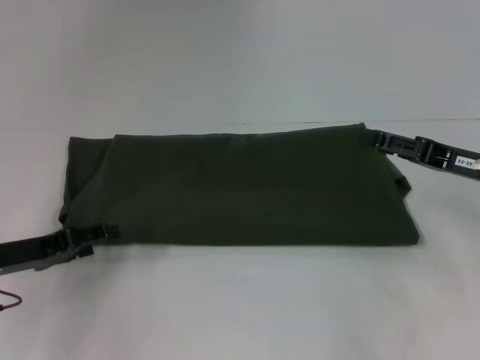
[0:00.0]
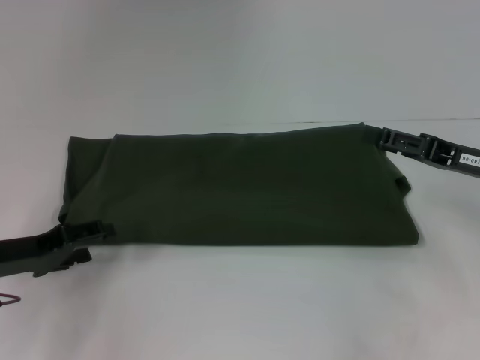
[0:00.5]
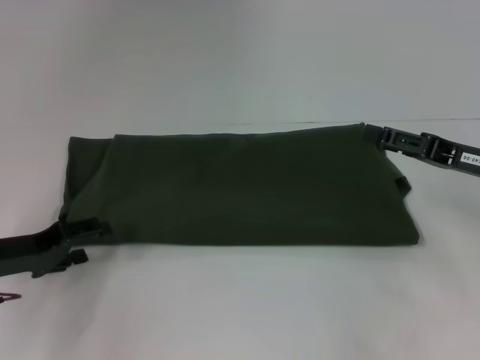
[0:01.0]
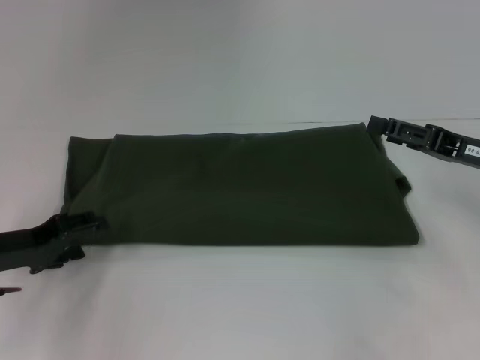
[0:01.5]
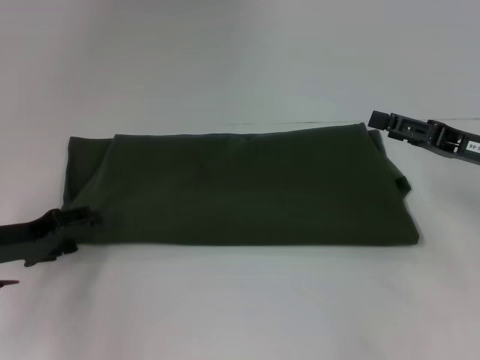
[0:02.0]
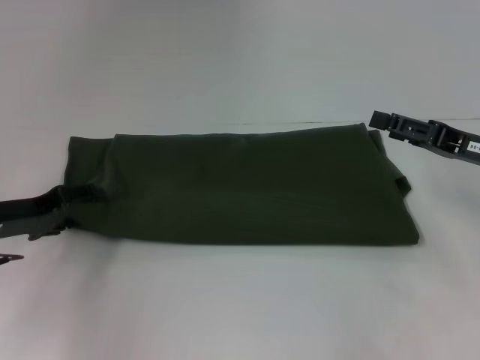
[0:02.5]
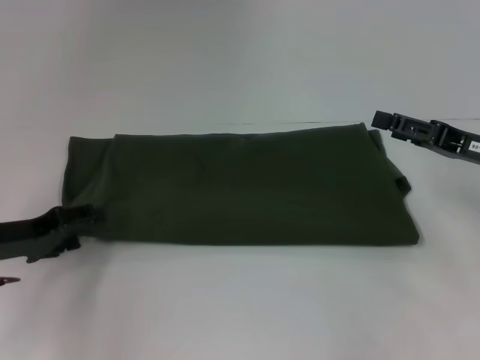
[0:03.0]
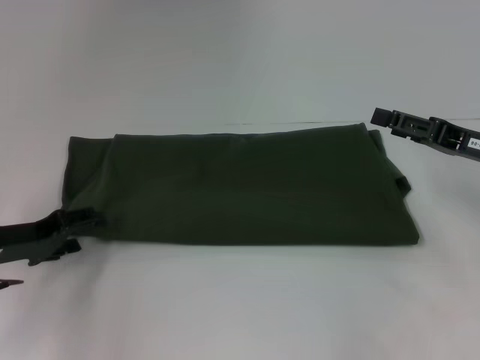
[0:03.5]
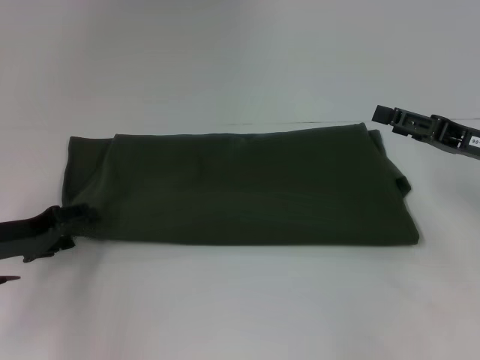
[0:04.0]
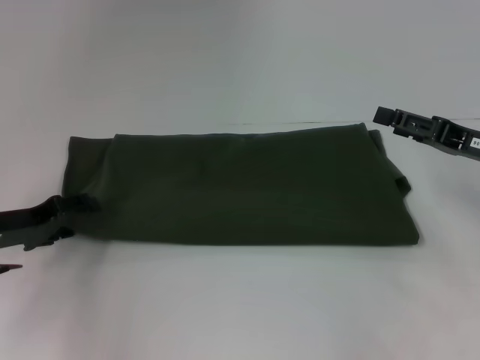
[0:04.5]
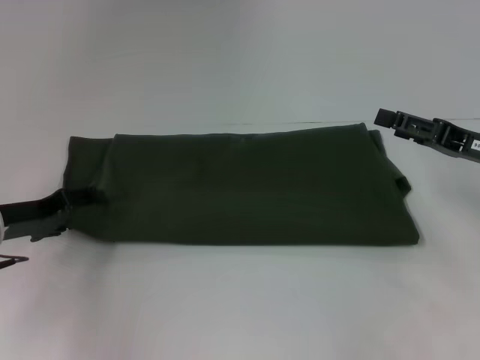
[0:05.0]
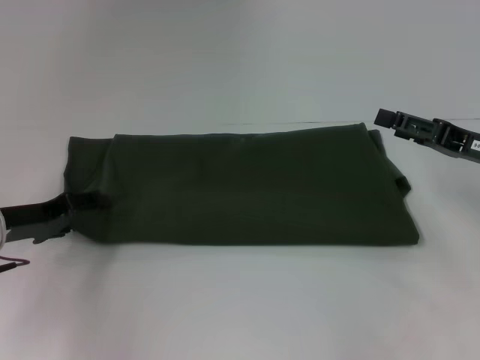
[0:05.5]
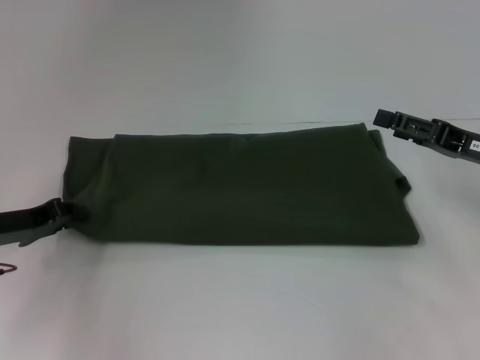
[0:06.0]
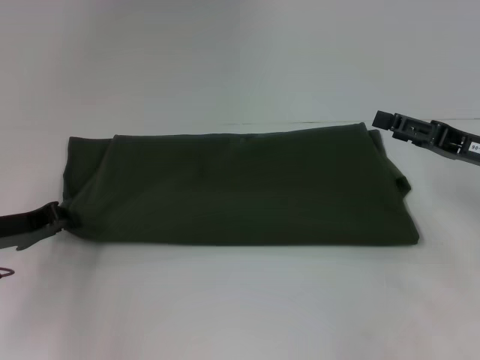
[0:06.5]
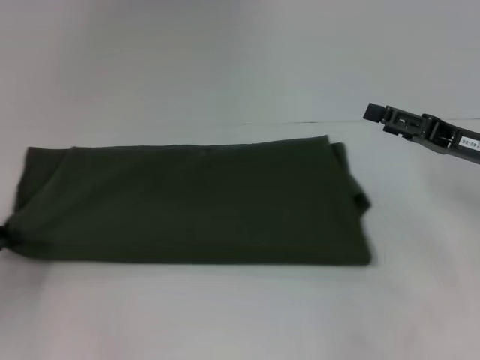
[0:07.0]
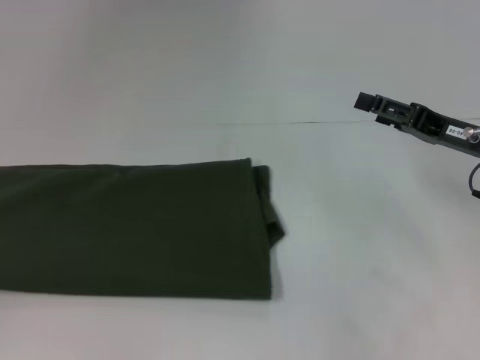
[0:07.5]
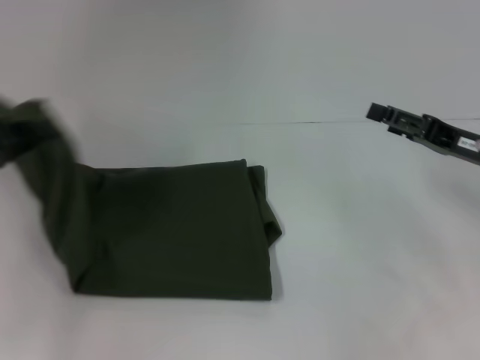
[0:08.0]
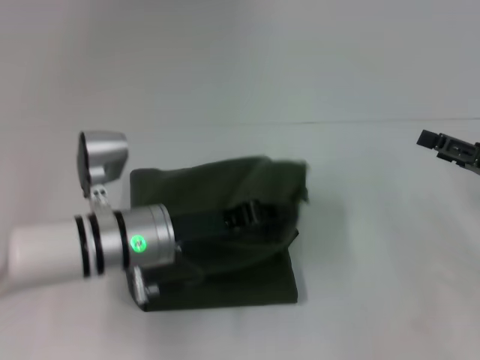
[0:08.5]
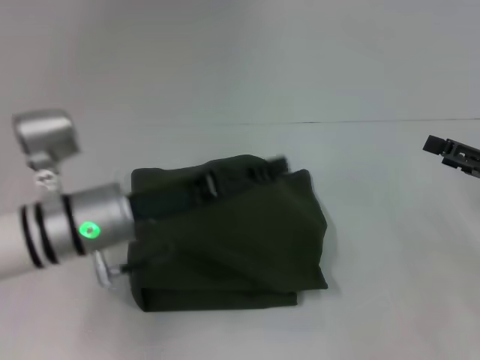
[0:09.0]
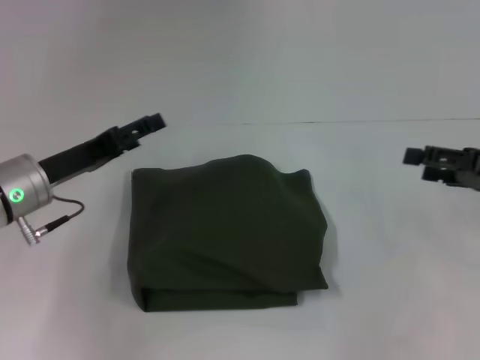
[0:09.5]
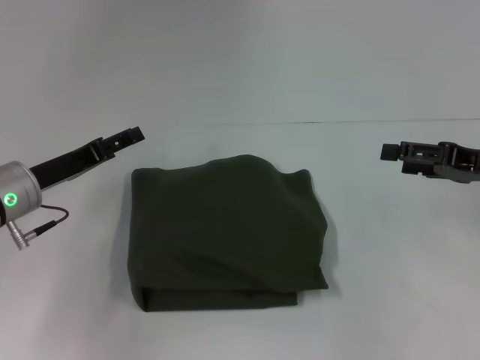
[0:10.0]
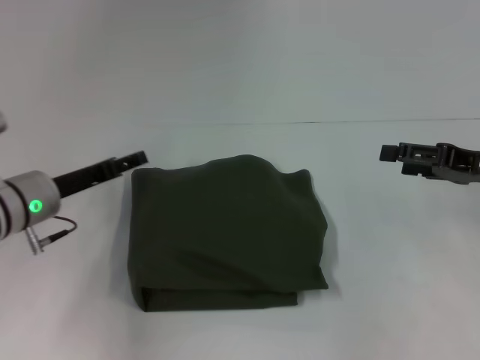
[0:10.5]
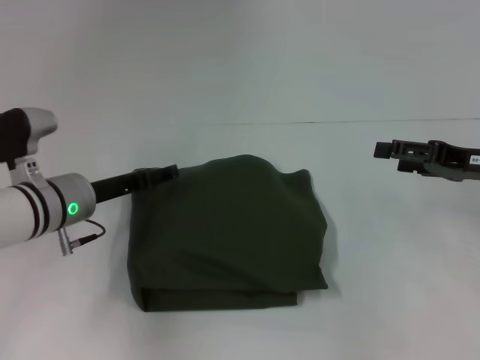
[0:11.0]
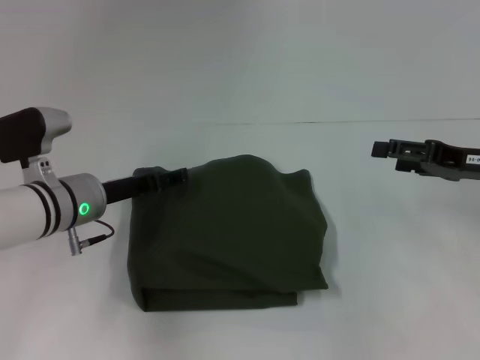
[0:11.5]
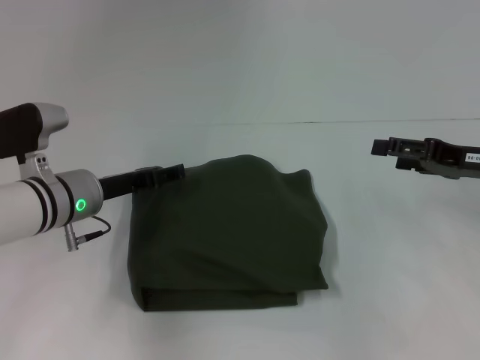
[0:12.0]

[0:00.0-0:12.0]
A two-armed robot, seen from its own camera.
0:00.0 to 0:04.0: There are only small adjustments of the grippers.
0:04.0 to 0:06.0: The left gripper closes up.
0:06.0 to 0:08.0: The left gripper heads upward, covering approximately 10 cm, moves roughly 15 cm to the left and comes back, and closes its fingers.
0:08.0 to 0:10.0: The left gripper travels to the right and downward by roughly 10 cm, and opens.
0:10.0 to 0:12.0: The left gripper goes about 5 cm to the right.

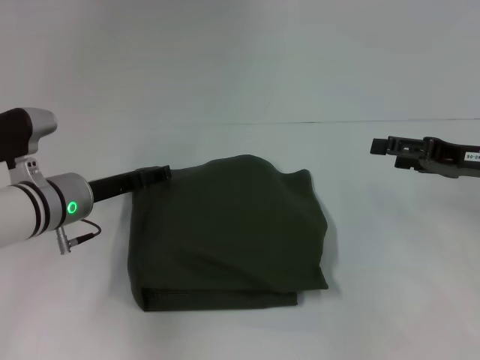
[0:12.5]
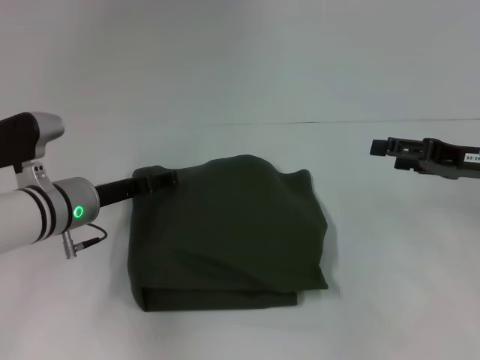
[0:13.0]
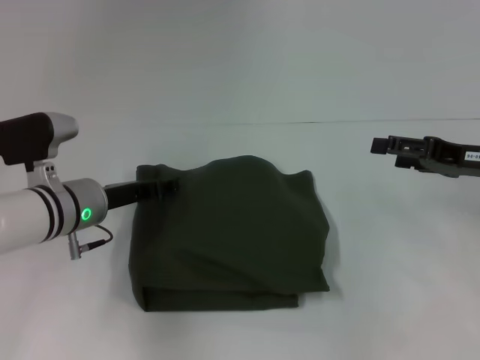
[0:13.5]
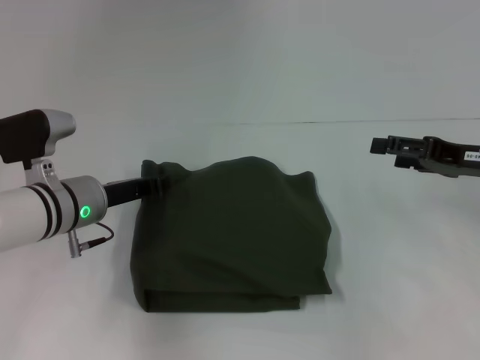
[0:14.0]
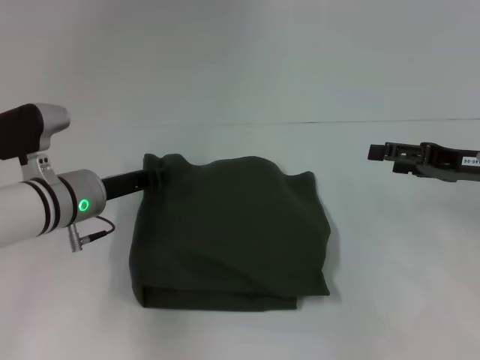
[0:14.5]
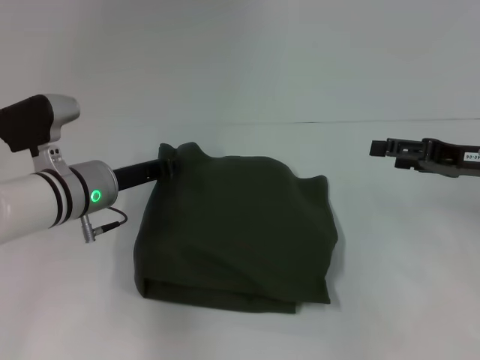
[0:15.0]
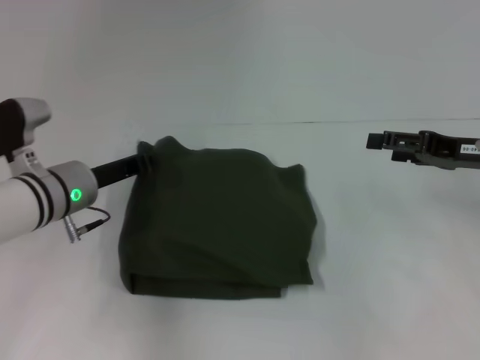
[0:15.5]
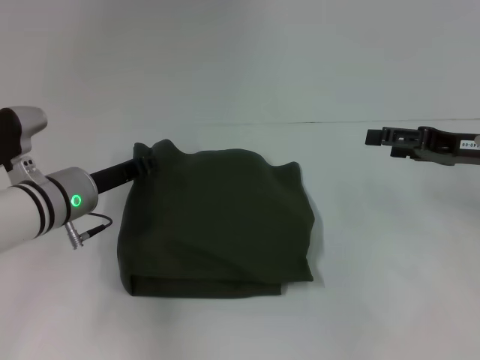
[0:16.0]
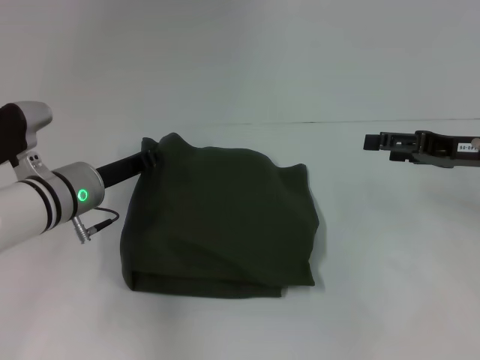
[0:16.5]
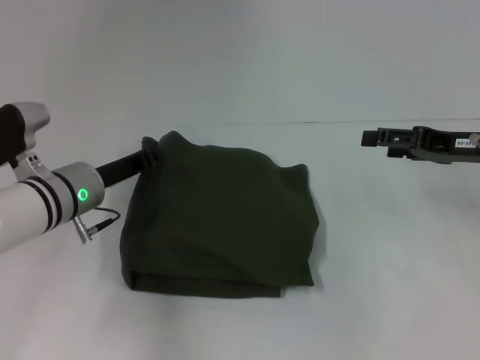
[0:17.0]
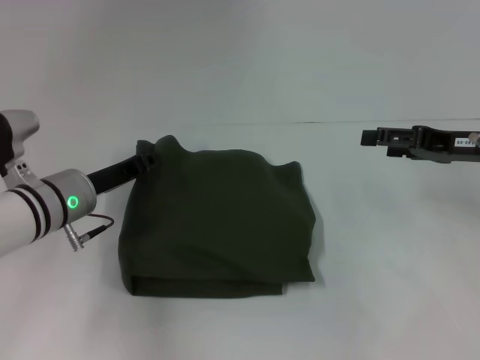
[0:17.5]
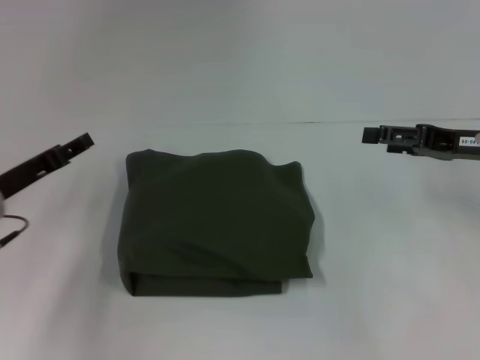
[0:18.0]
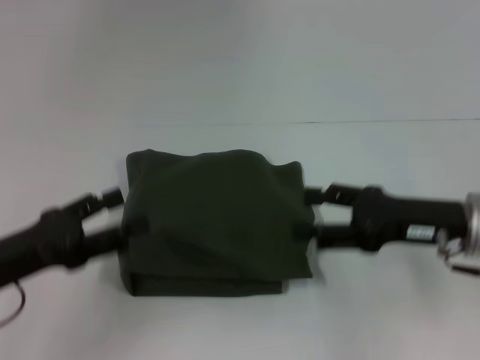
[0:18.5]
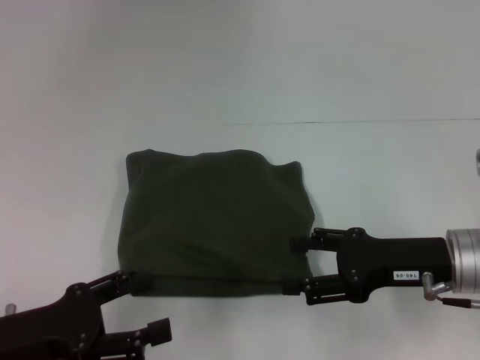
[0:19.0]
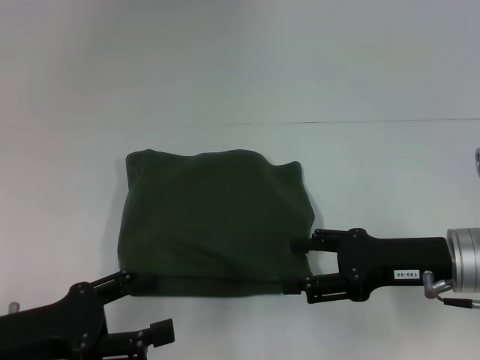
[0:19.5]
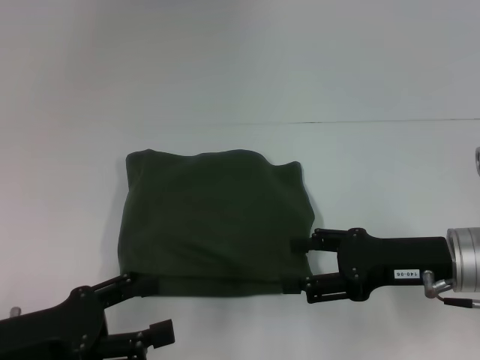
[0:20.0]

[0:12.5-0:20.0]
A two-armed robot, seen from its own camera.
Step, 0:12.5 to 0:19.5: Fold the clothes with your left hand.
0:12.5 to 0:14.5: The left gripper closes up.
0:14.5 to 0:16.5: There are only small adjustments of the grippers.
0:16.5 to 0:18.0: The left gripper shifts some 10 cm to the left, and opens up.
0:18.0 to 0:20.0: The right gripper shifts about 10 cm backward and to the left; the left gripper heads backward, covering some 15 cm, and opens its fingers.

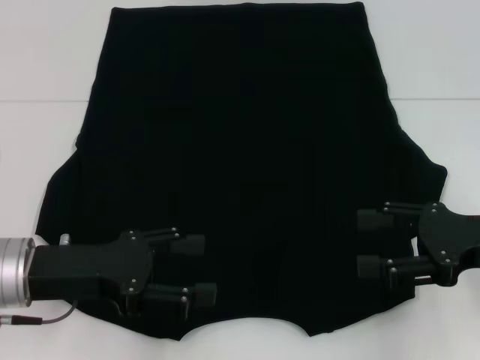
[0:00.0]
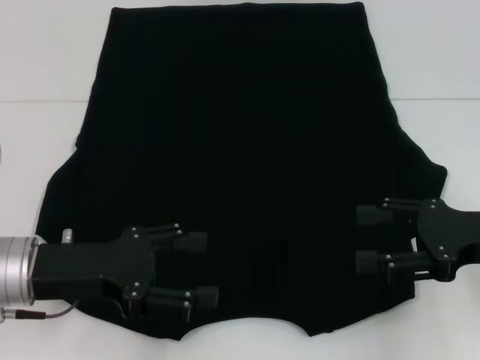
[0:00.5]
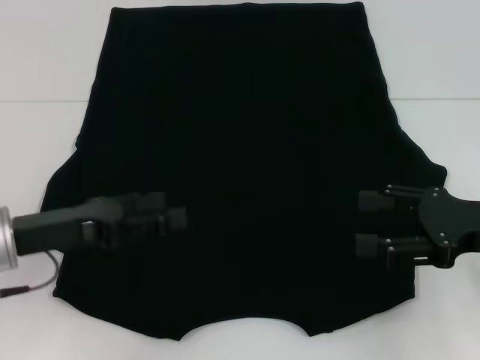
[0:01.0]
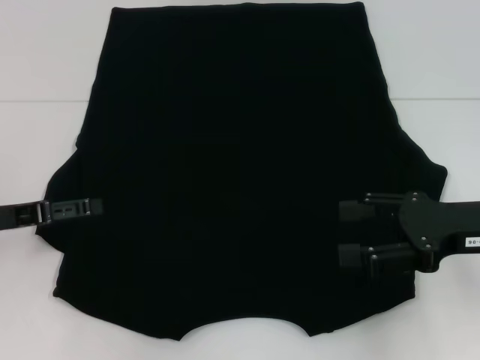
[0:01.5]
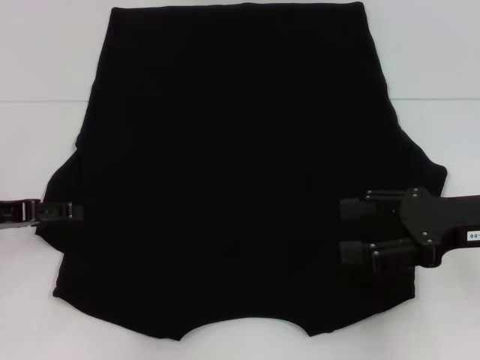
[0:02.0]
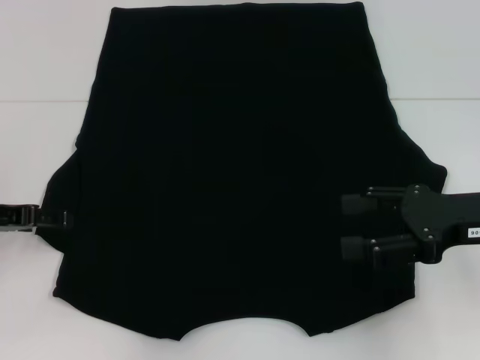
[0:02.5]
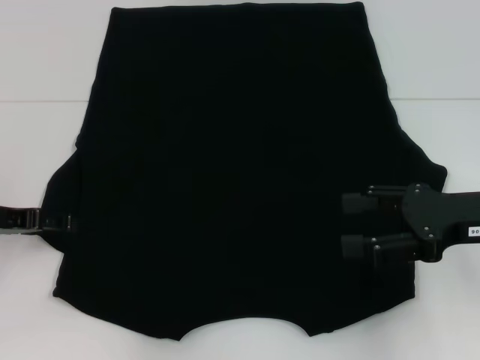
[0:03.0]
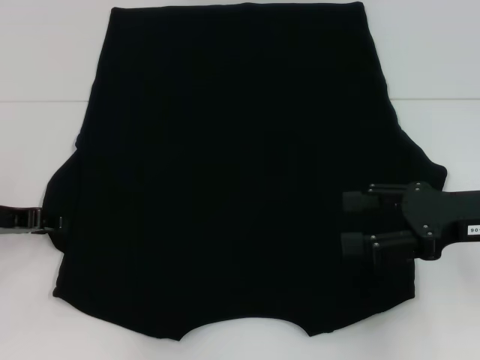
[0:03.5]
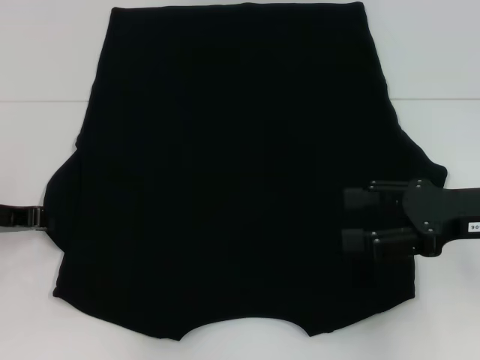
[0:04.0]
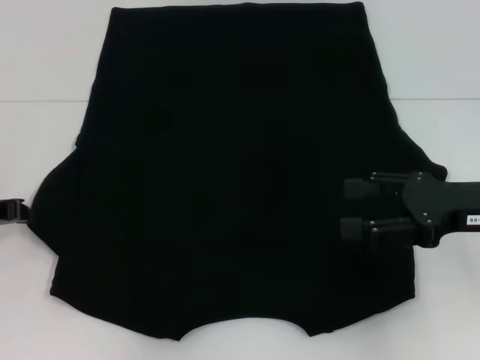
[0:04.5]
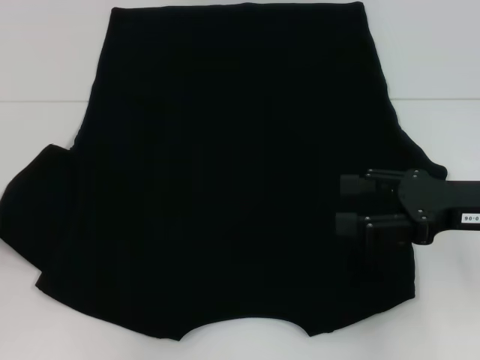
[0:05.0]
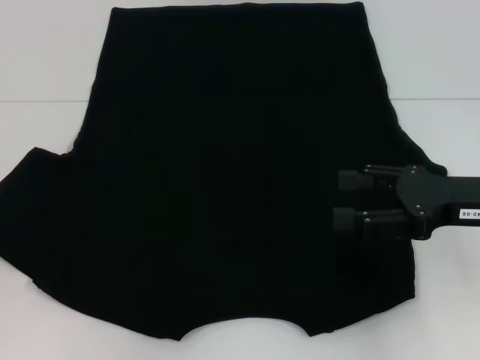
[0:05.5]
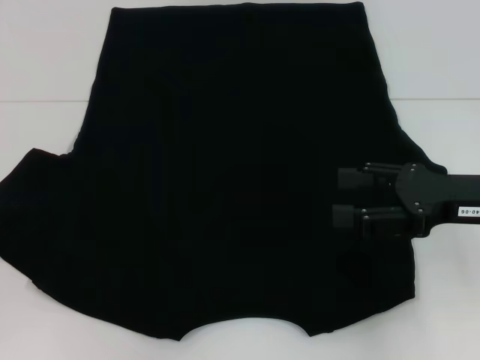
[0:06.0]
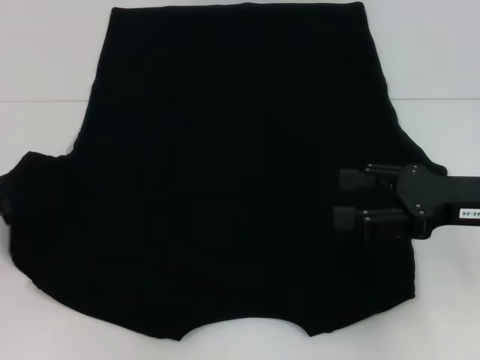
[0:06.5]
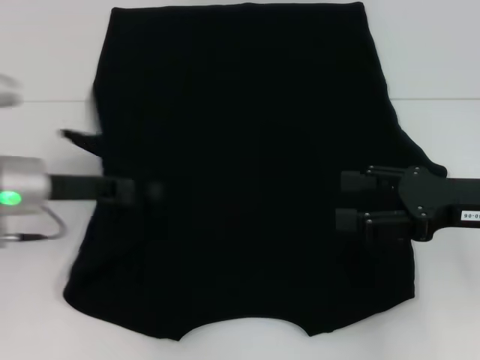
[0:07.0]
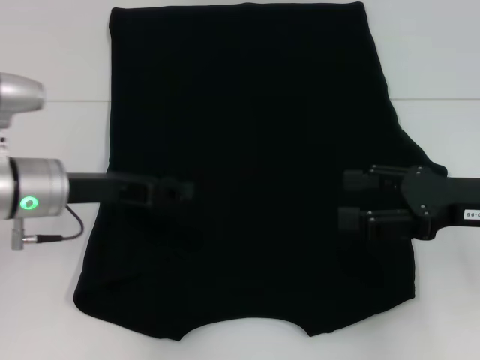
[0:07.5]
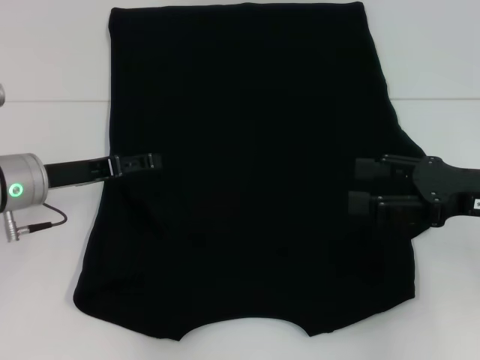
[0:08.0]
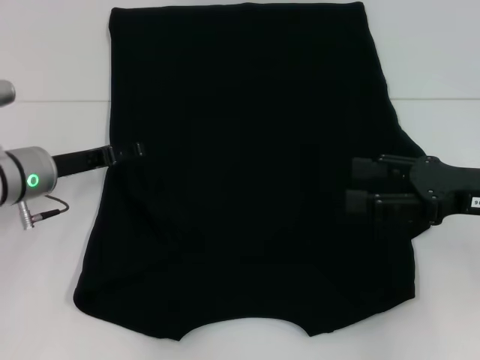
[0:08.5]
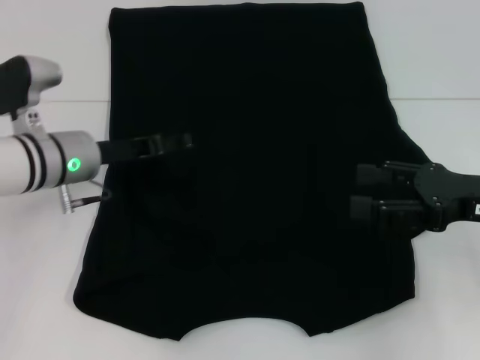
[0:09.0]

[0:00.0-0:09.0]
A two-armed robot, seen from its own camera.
0:00.0 to 0:02.0: The left gripper moves to the left and forward, some 10 cm.
0:02.0 to 0:04.5: The left gripper closes.
0:04.5 to 0:07.0: The left gripper travels to the right by about 10 cm.
0:07.0 to 0:09.0: The left gripper shifts by approximately 5 cm, and opens its fingers.
